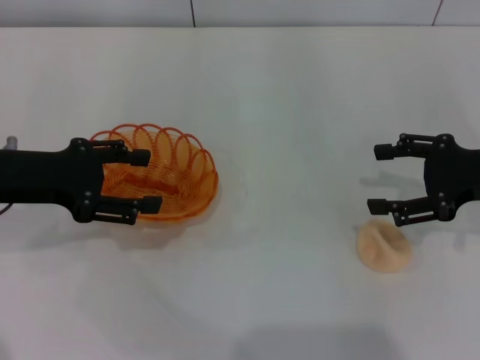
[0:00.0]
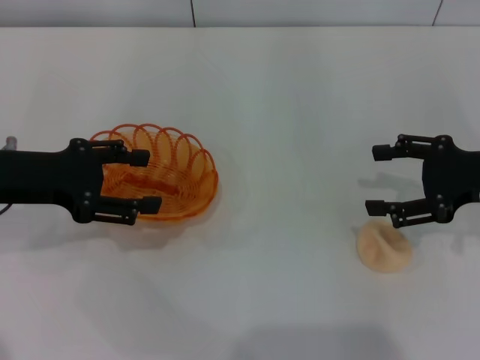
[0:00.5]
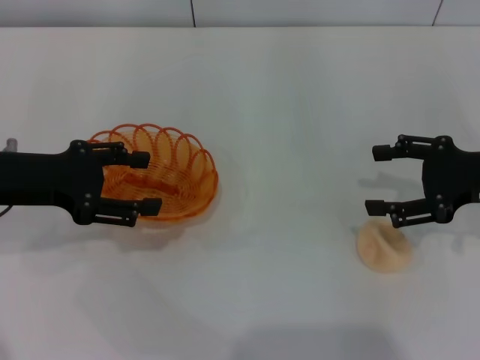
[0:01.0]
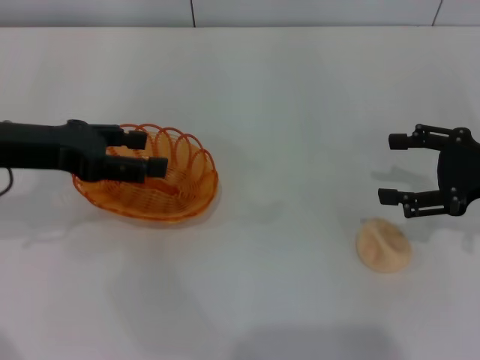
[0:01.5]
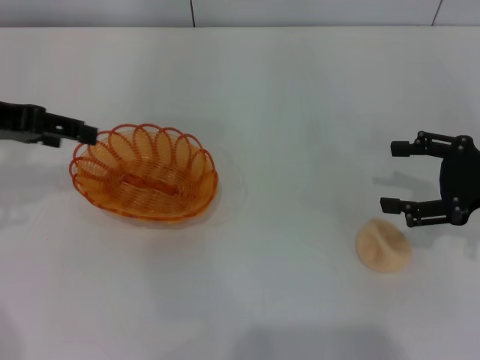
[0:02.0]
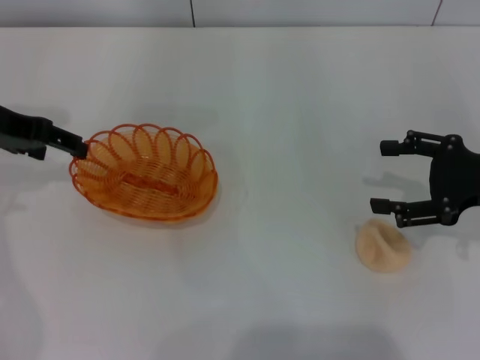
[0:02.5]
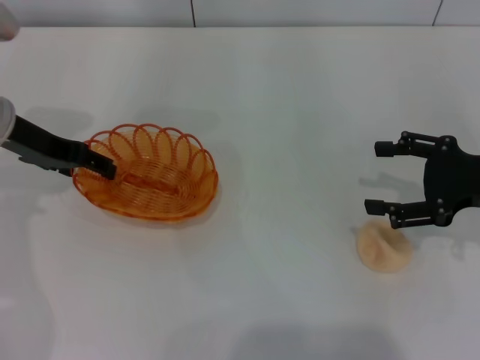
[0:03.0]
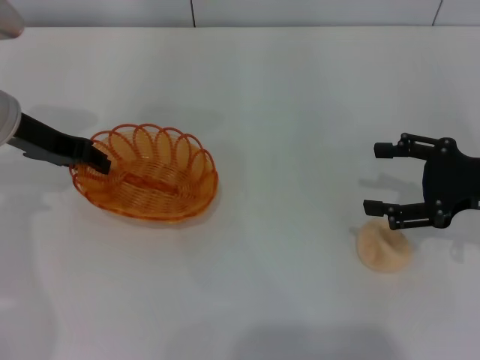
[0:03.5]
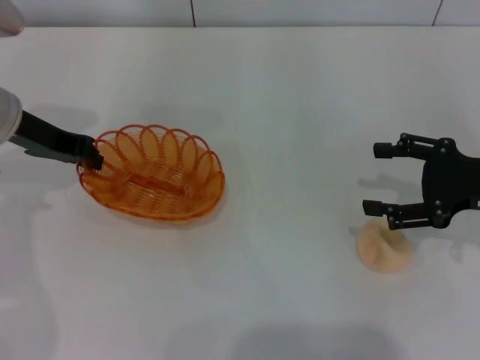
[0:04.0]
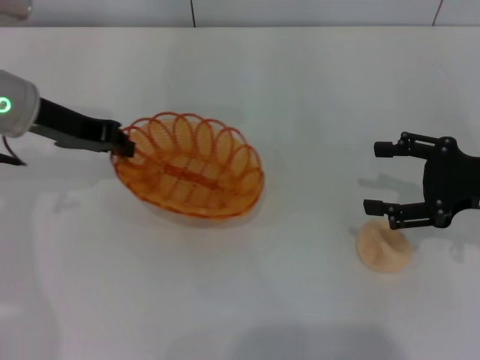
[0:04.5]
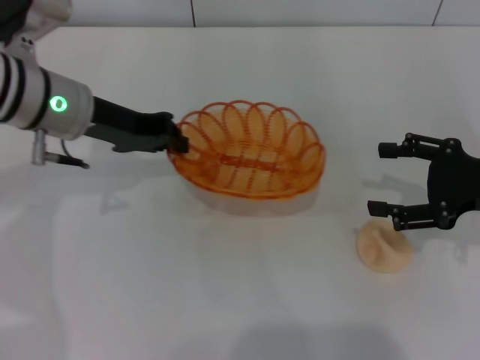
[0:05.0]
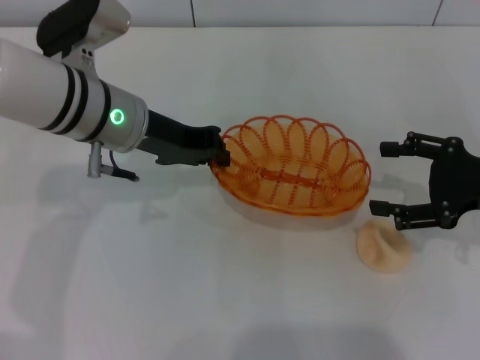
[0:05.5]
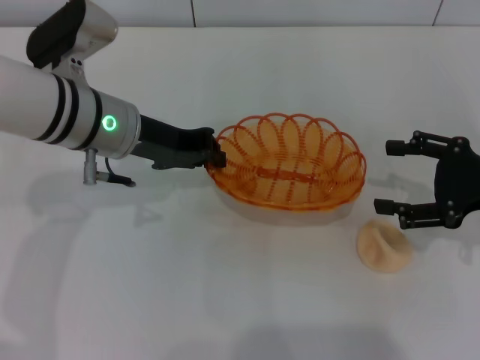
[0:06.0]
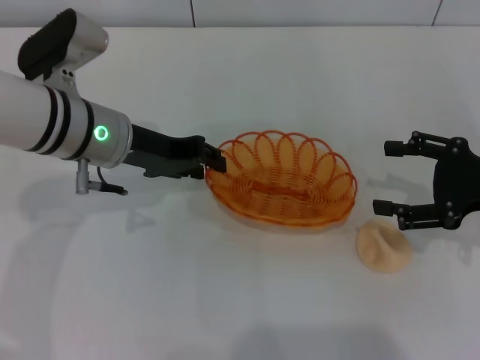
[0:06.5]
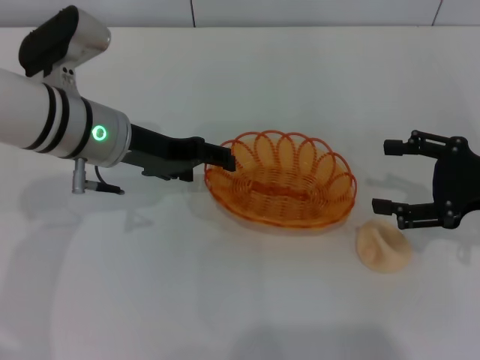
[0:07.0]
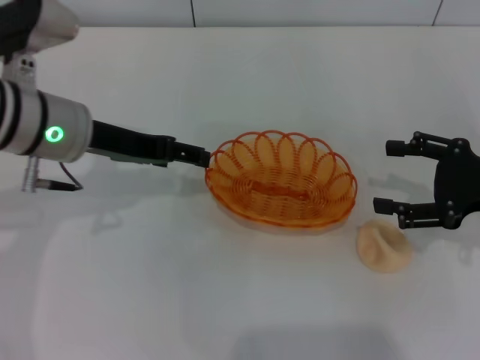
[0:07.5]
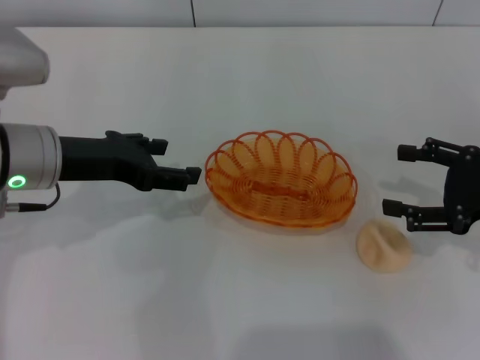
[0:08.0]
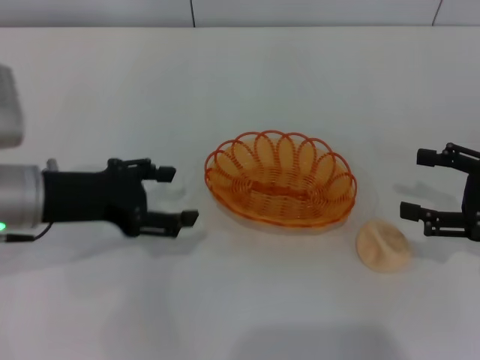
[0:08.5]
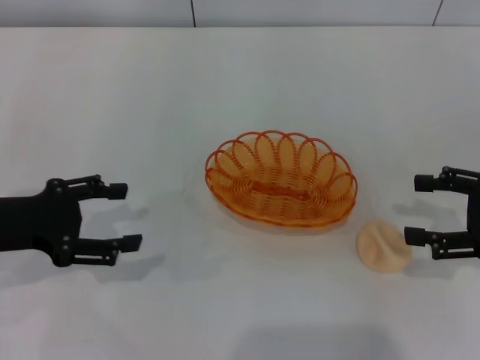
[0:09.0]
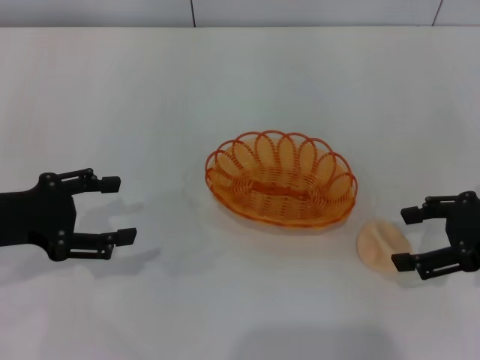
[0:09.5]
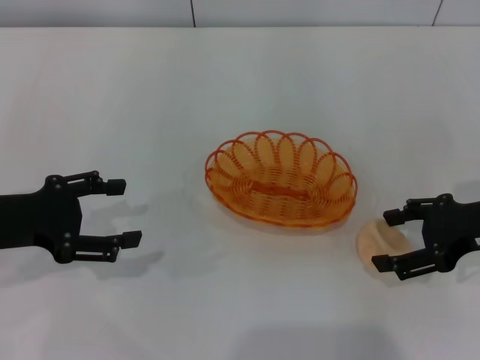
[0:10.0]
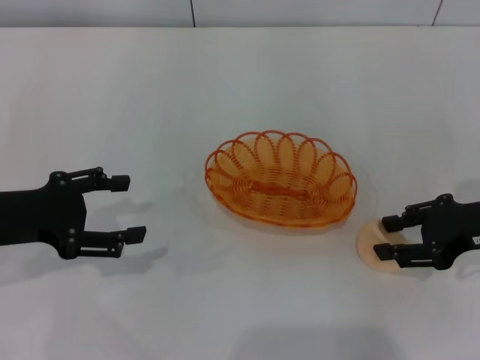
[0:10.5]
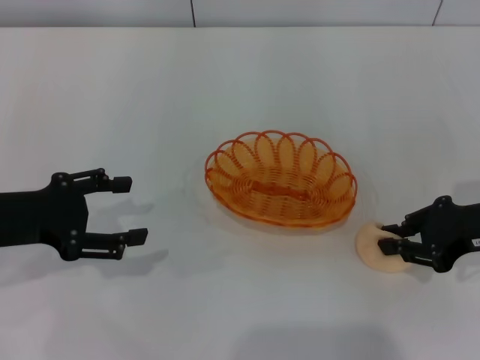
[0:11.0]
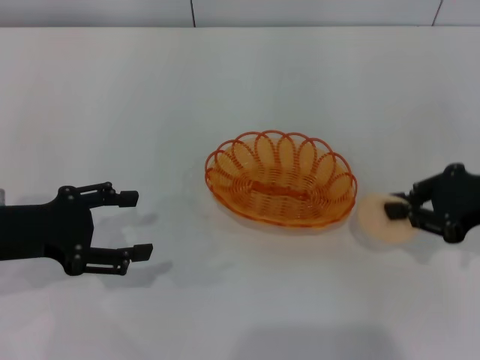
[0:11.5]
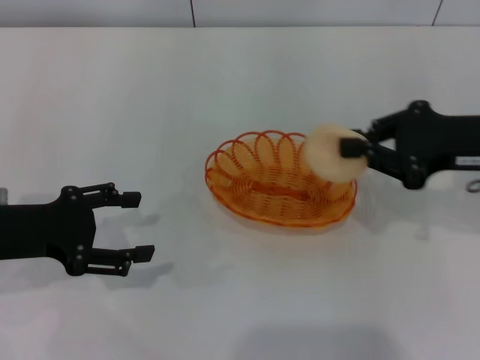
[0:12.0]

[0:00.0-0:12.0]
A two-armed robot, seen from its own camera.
Step, 0:00.0 to 0:04.5: Pick up the basket with the left gripper.
Step, 0:05.0 to 0:07.5: Place the basket in the center of view with the left gripper.
Step, 0:08.0 to 0:11.5: Pick up the egg yolk pastry with the right gripper.
0:00.0 to 0:02.0: The left gripper moves upward, approximately 5 cm.
0:02.0 to 0:04.0: The left gripper heads downward, covering some 5 cm, and closes its fingers.
0:04.0 to 0:06.0: The left gripper travels to the right by approximately 10 cm.
0:06.0 to 0:08.0: The left gripper moves to the left, approximately 5 cm, and opens.
0:08.0 to 0:10.0: The left gripper is displaced to the left and backward by some 10 cm.
0:10.0 to 0:12.0: The right gripper shifts by approximately 5 cm, and closes up.

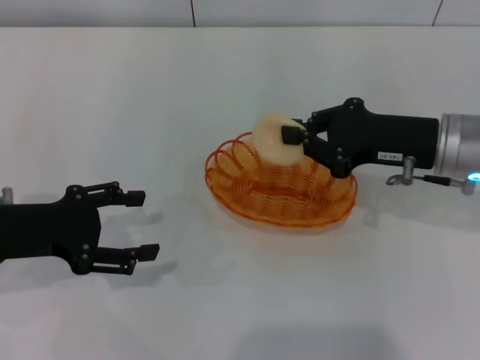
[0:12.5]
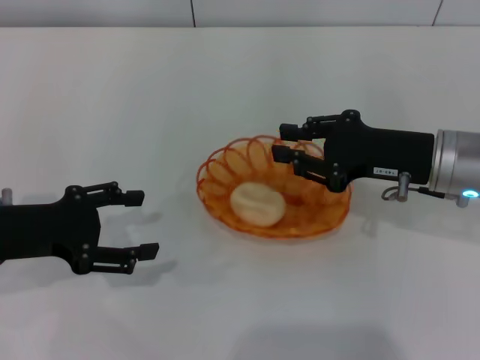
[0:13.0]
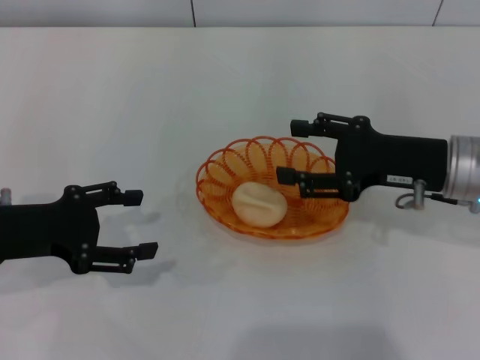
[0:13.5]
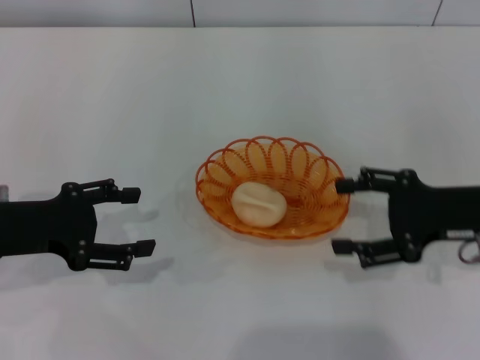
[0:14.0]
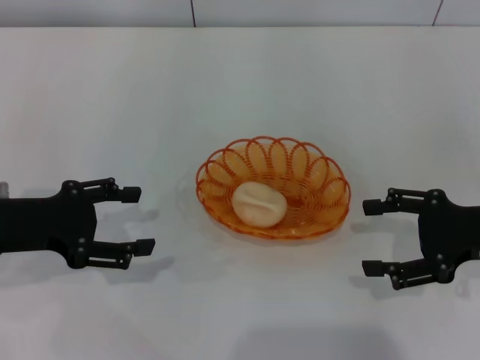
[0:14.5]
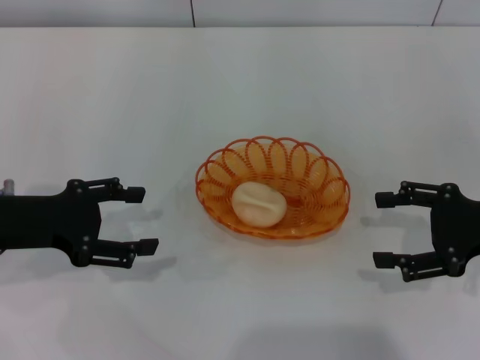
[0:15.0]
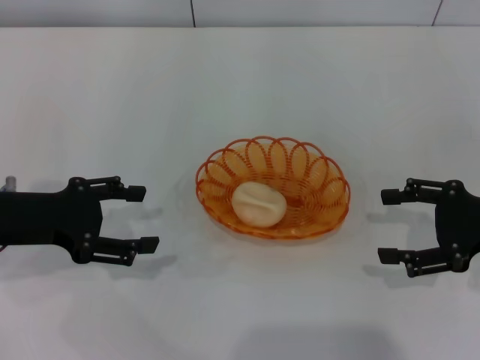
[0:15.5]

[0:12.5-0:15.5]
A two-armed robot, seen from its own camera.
0:12.5 to 0:14.0: The right gripper moves to the right, about 5 cm, and opens.
0:14.0 to 0:15.5: The grippers make only small movements.
